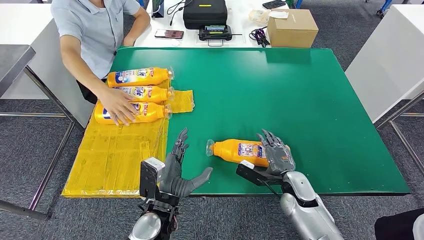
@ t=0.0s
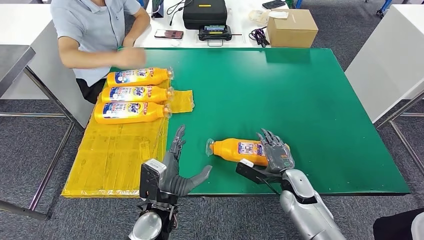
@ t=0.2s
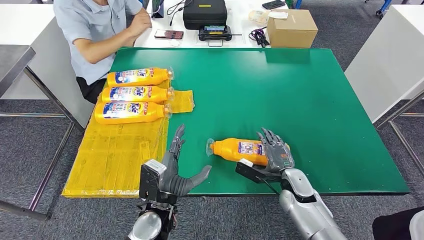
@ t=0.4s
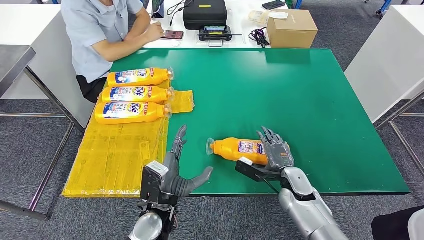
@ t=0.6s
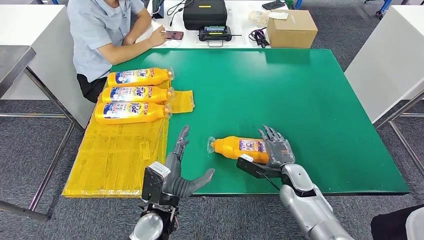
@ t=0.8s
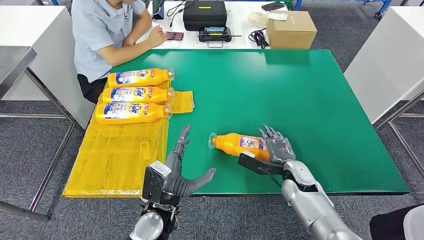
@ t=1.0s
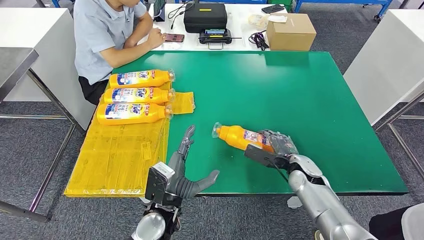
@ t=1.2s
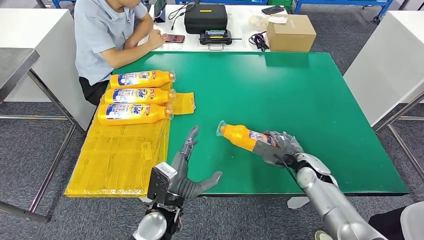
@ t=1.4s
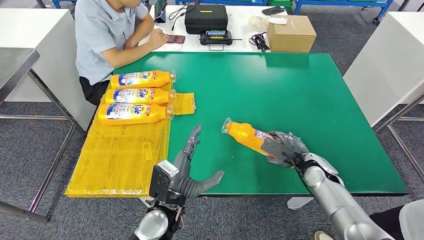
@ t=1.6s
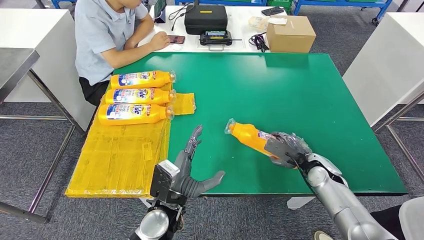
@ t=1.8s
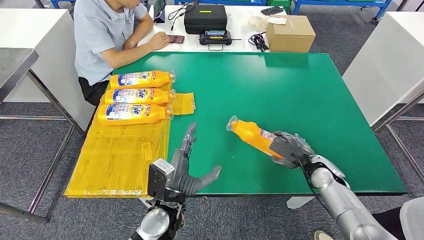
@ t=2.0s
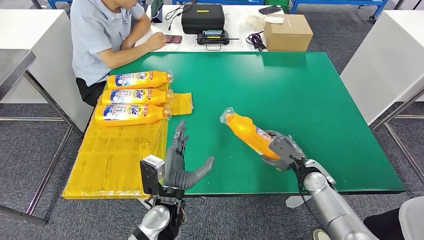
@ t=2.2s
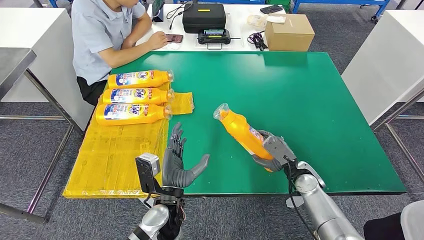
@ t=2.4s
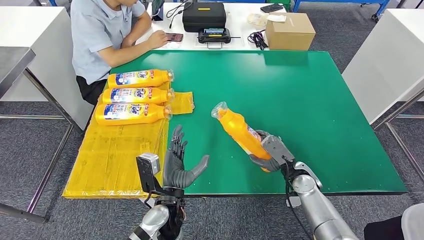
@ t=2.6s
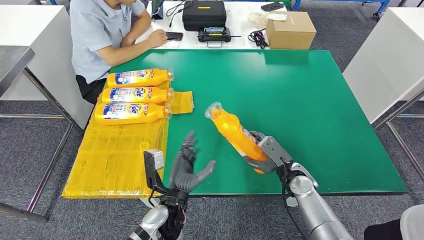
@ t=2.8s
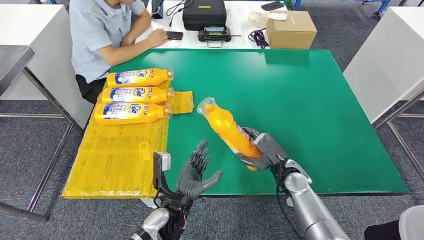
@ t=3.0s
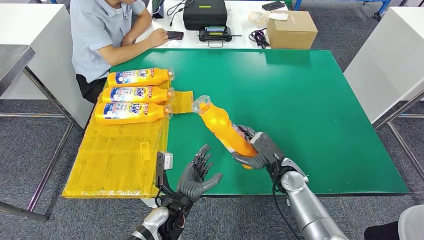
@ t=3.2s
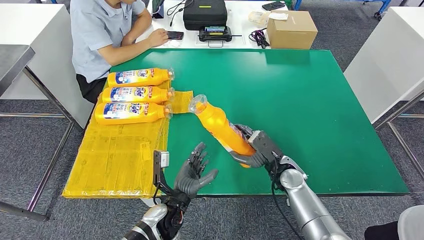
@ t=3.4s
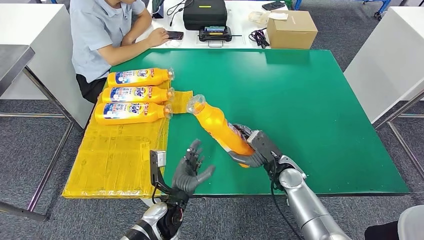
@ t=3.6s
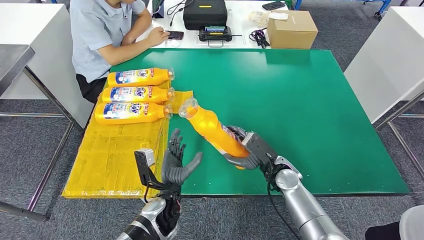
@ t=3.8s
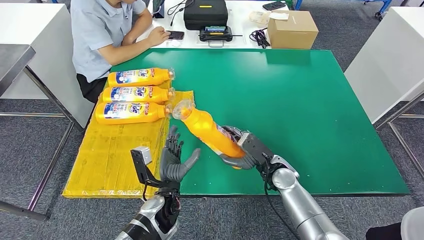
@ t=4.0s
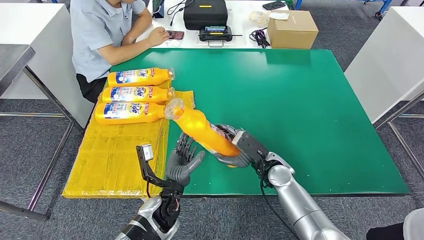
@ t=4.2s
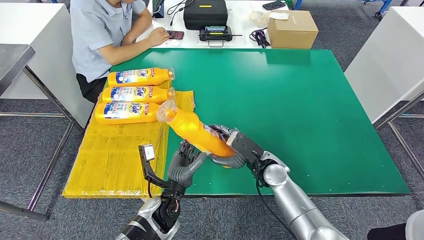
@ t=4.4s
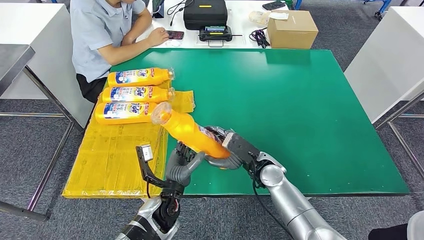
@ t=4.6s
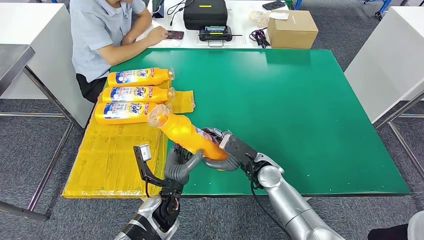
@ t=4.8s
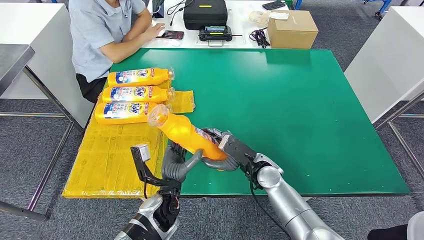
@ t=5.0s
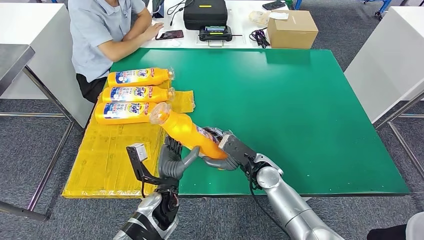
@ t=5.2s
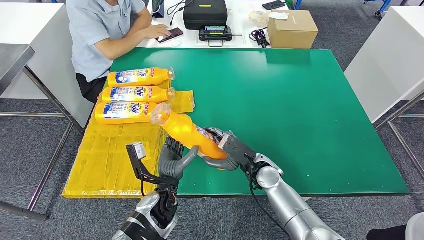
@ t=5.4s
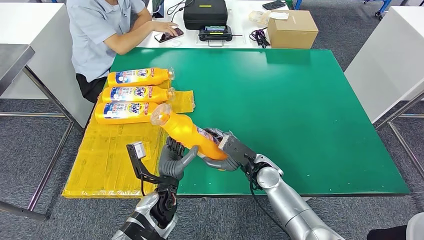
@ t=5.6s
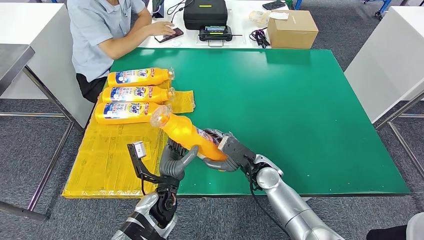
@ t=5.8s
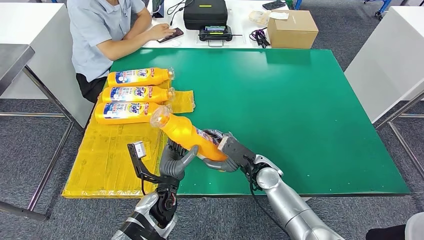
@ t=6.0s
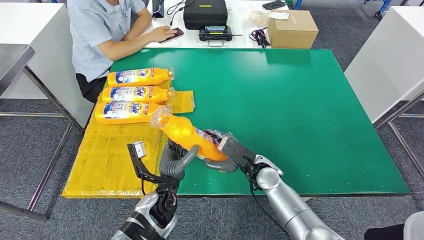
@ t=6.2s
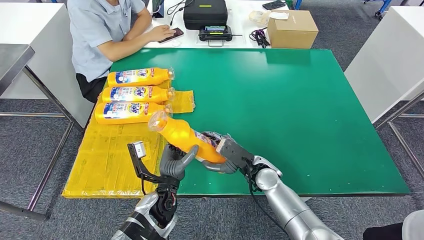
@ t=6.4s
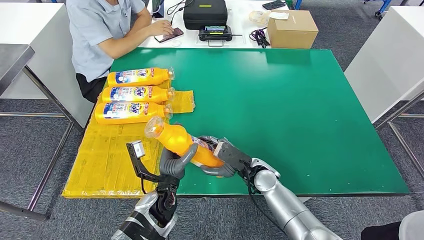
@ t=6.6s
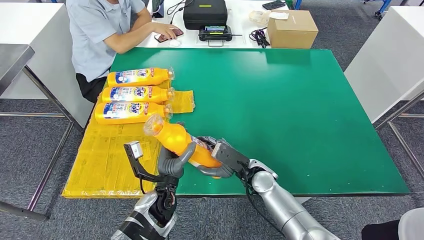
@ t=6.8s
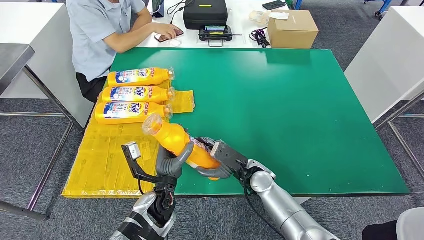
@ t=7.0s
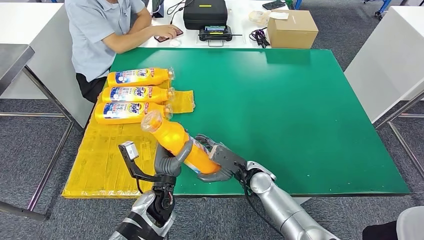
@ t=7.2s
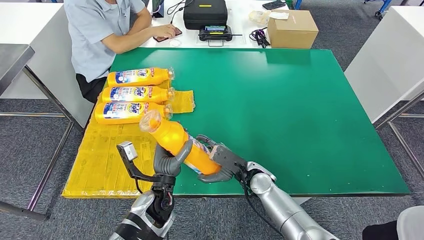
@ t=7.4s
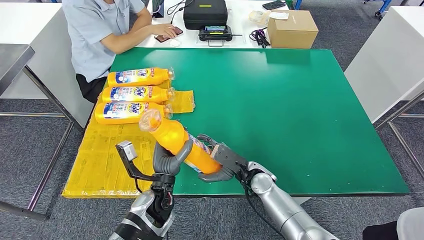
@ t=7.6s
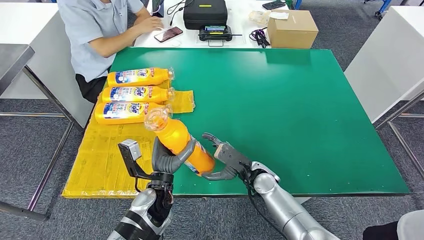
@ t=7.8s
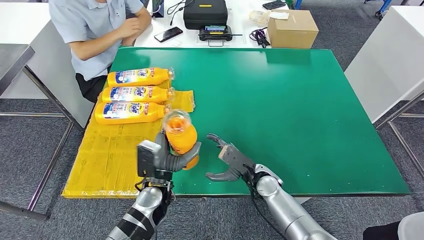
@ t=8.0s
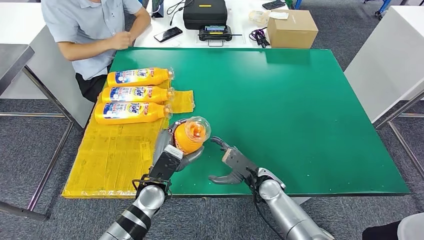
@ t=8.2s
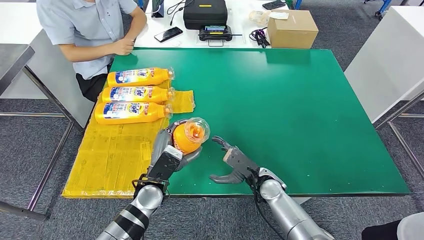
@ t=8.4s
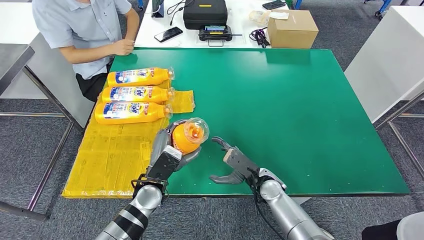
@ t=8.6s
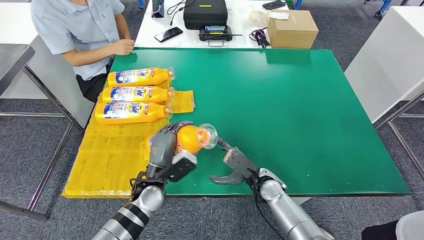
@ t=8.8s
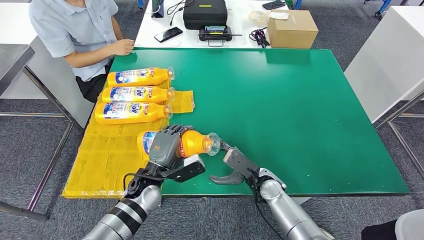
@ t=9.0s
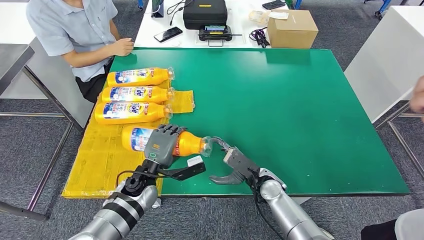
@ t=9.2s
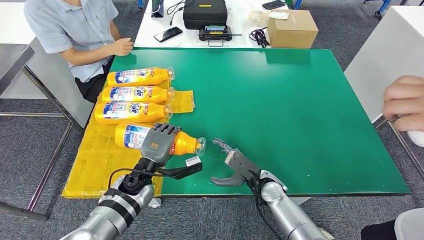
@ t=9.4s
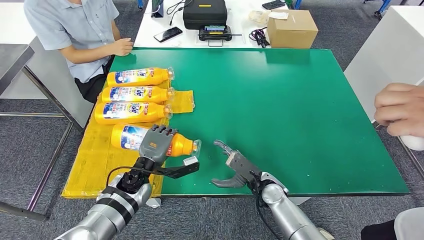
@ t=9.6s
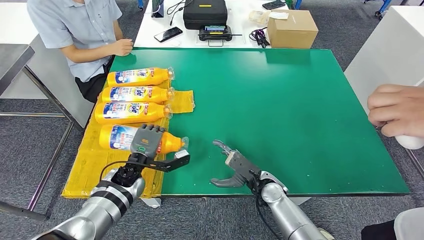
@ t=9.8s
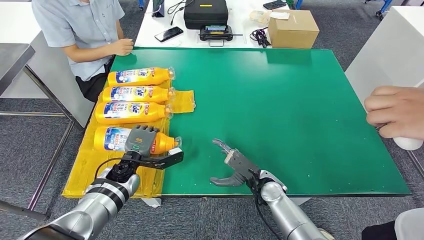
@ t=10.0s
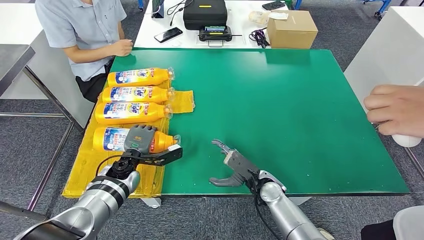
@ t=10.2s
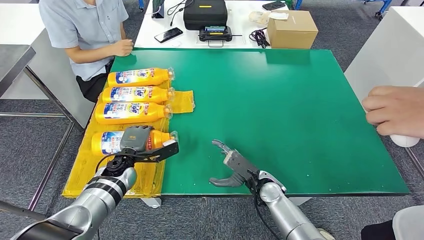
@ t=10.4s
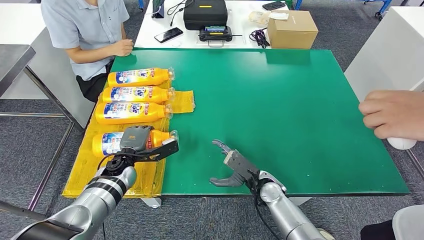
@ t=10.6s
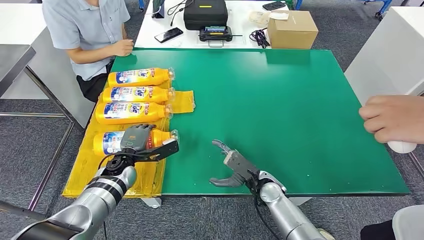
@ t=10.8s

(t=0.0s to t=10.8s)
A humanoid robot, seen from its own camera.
Step, t=0.0s - t=2.6s: Pick up the fast-moving consumer goods bottle from the table.
Step, t=2.8s - t=10.6s: Flip the fast-moving consumer goods bottle to the front side.
t=3.0s - t=4.6s: The right hand moves to the left, about 10 cm.
t=4.6s - t=6.2s: There are only small adjustments of the hands.
t=6.2s - t=7.8s: The hands stay close to where they were, moving slightly.
t=7.8s - t=9.2s: The left hand changes place by about 5 cm.
t=9.2s - t=10.8s: The left hand is displaced to the left by about 5 cm.
